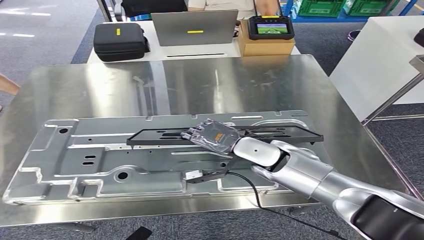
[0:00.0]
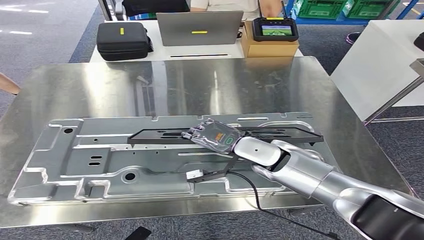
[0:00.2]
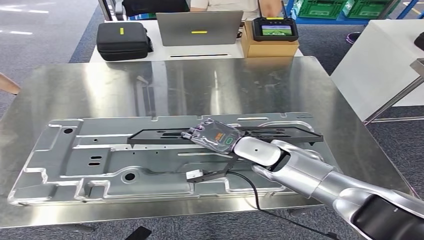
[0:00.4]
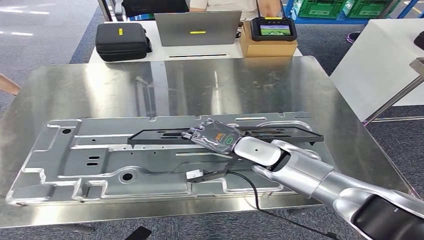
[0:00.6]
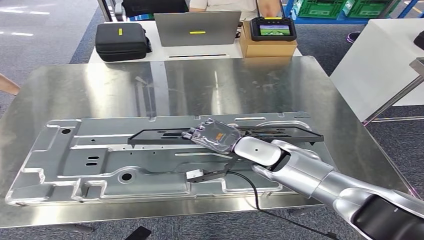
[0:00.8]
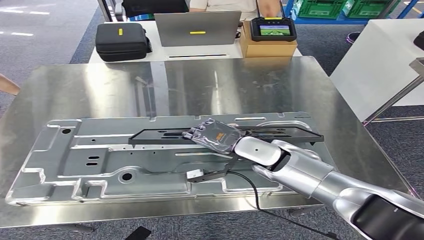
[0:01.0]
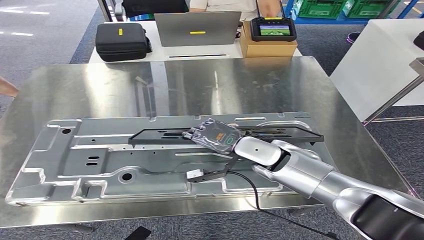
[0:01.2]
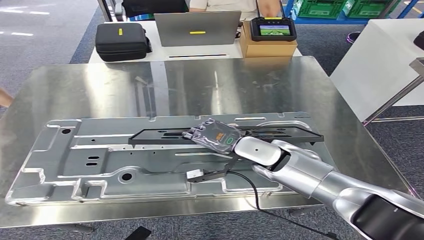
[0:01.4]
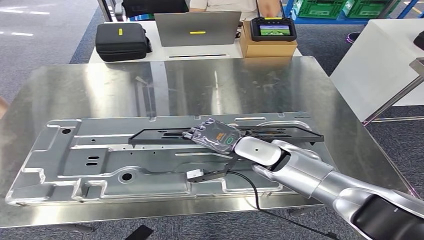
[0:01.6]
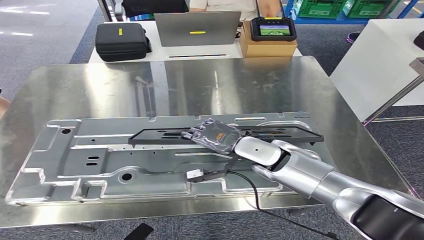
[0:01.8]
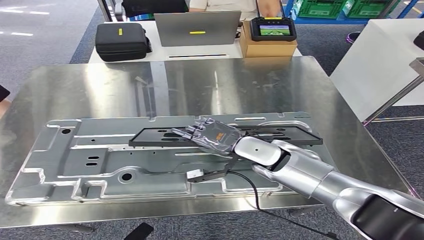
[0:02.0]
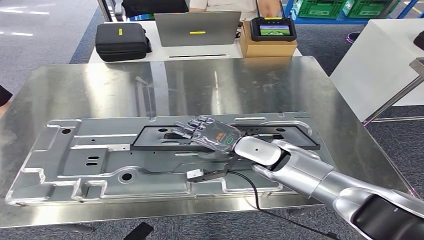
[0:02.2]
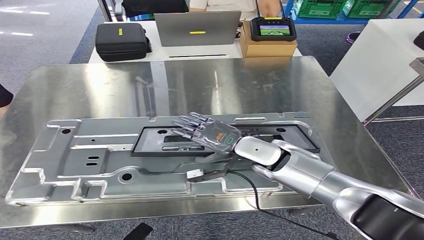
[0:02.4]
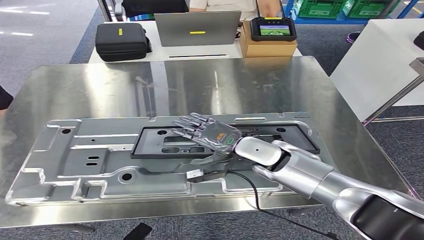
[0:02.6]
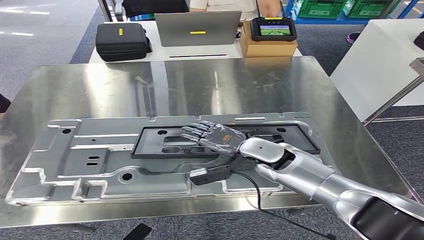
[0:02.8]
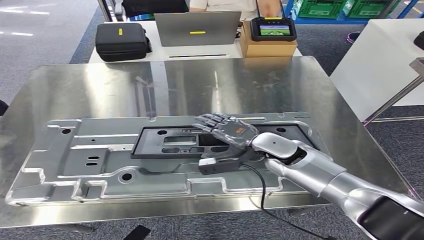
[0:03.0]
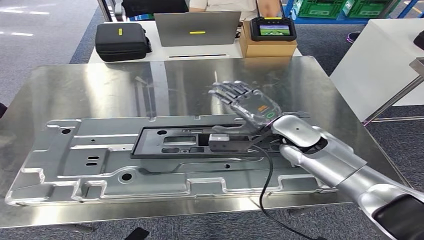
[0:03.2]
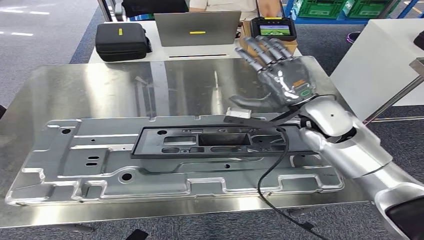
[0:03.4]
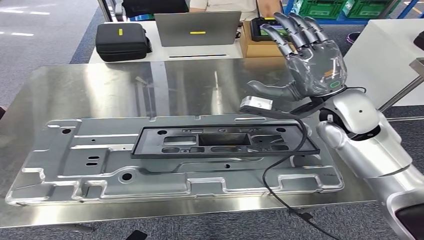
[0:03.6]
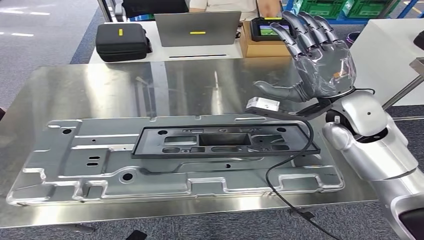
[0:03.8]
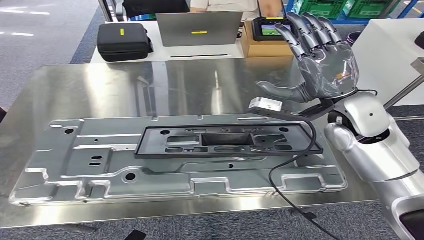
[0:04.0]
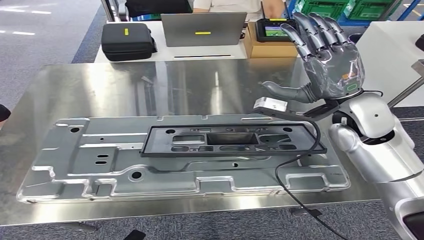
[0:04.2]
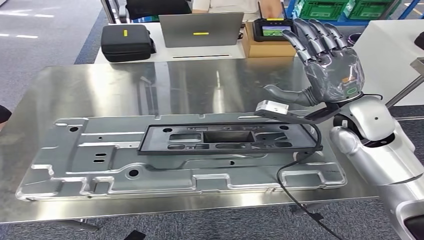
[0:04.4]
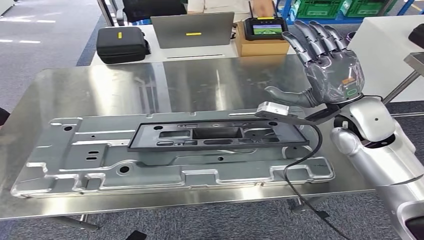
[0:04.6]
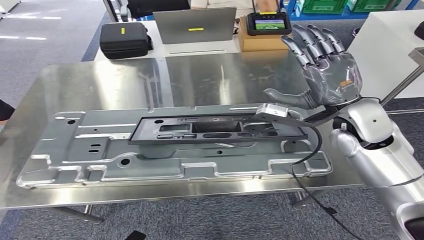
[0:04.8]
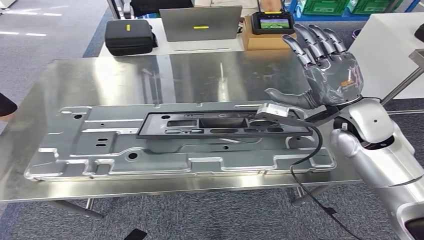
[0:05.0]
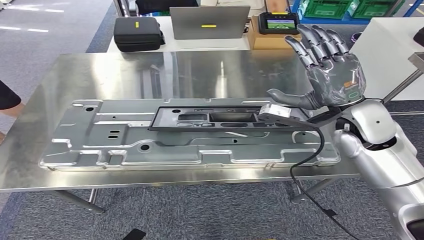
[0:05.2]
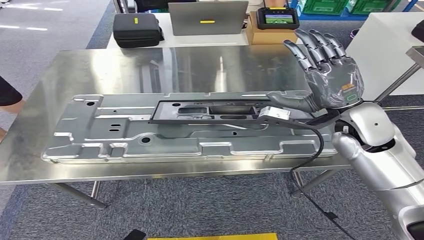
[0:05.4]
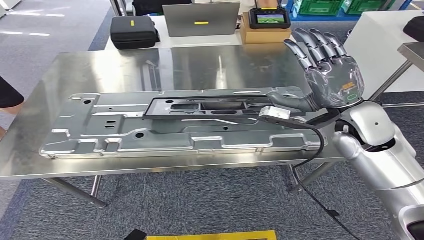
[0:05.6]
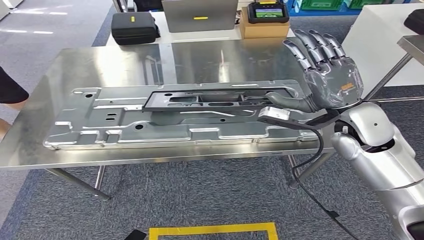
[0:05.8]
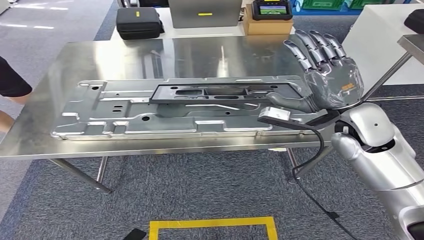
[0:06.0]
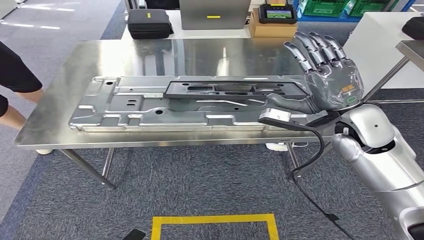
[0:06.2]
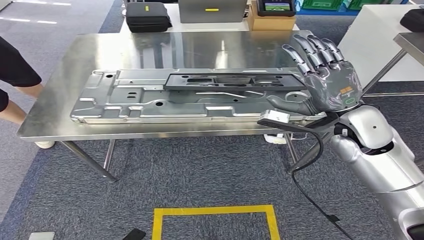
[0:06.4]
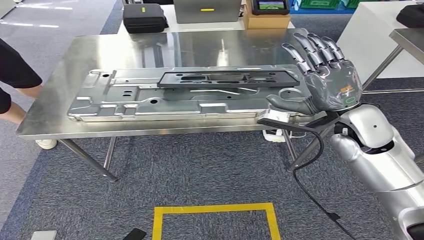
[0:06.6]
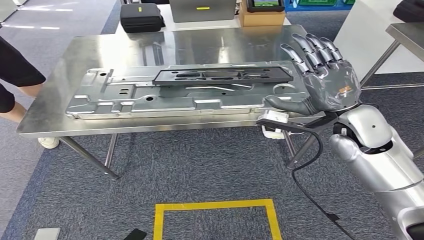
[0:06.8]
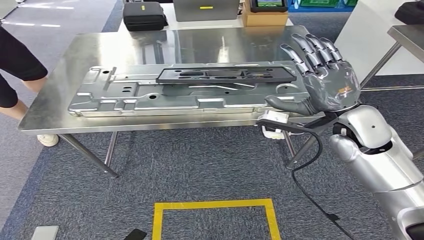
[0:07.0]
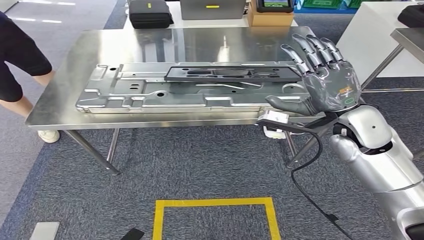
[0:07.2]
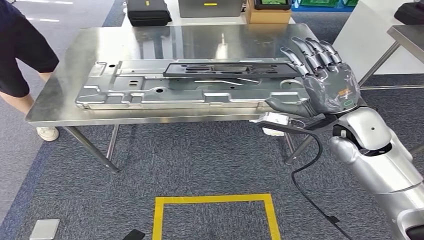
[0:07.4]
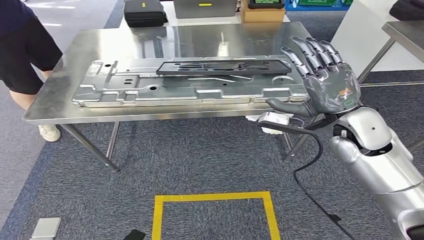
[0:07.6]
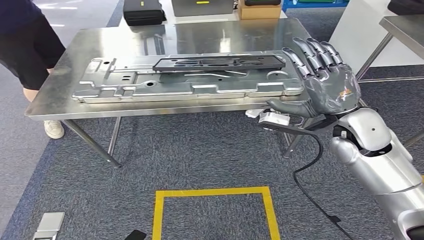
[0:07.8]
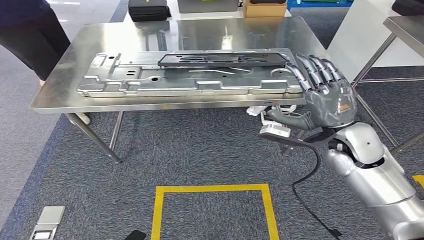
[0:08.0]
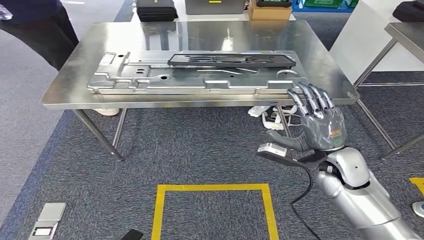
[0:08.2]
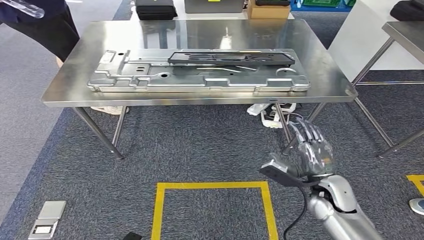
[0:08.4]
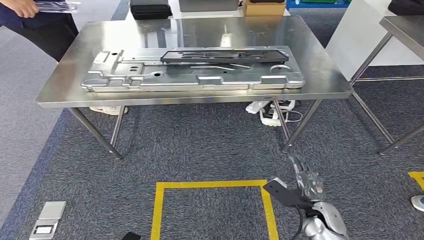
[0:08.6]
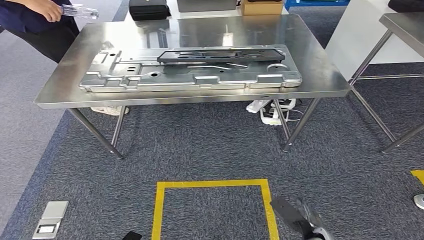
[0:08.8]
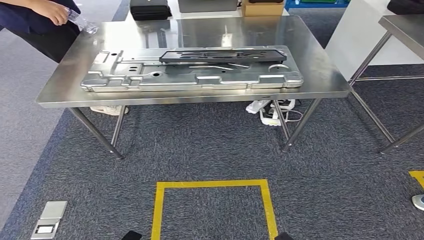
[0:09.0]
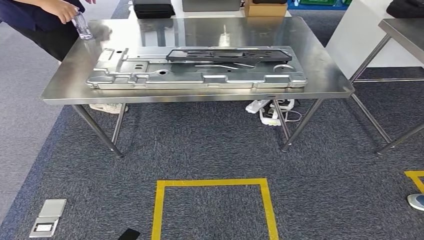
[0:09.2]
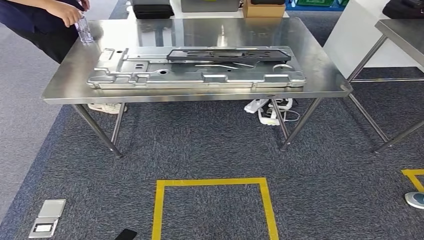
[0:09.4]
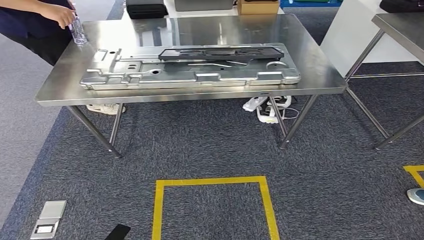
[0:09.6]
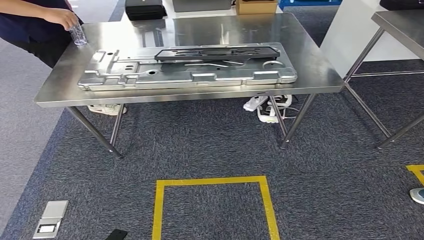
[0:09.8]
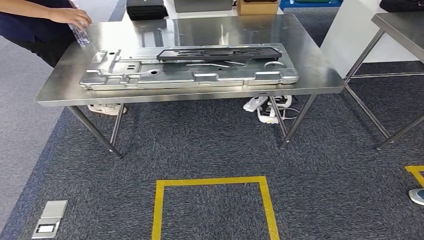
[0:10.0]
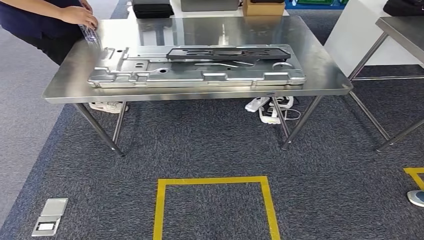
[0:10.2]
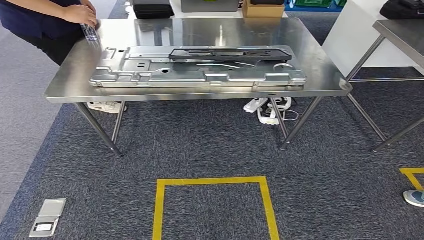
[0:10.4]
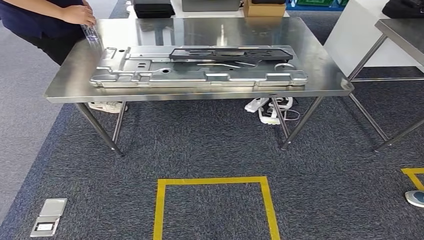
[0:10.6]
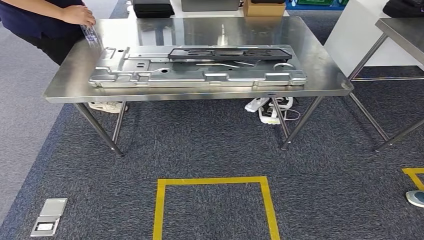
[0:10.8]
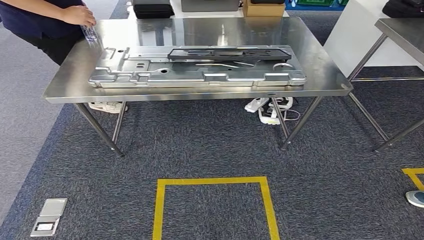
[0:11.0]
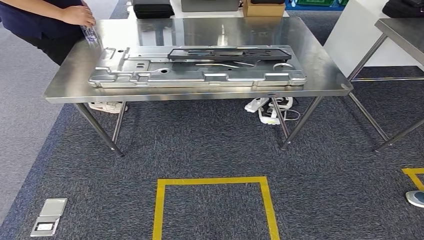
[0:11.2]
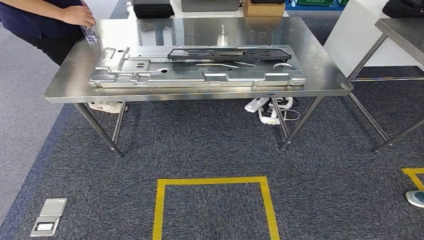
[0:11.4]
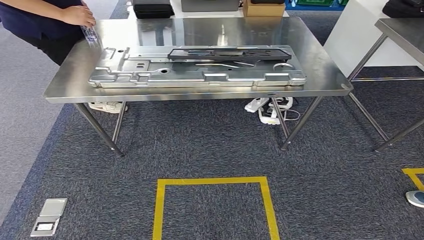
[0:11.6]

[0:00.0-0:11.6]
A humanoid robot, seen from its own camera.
Step, 0:00.0 to 0:04.2: Insert the large material into the corresponding slot on the workbench.
Step, 0:06.6 to 0:11.4: Move to the initial position of the shelf.
0:00.0 to 0:01.4: Both hands stay about where they are.
0:01.4 to 0:02.8: The hands move only a little.
0:10.2 to 0:11.6: The right hand changes place by approximately 5 cm.
